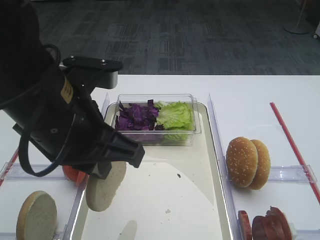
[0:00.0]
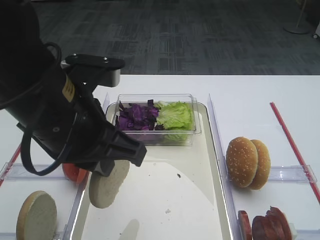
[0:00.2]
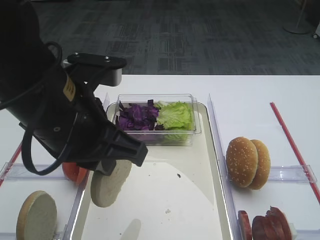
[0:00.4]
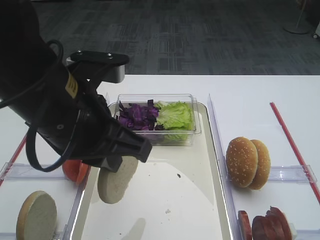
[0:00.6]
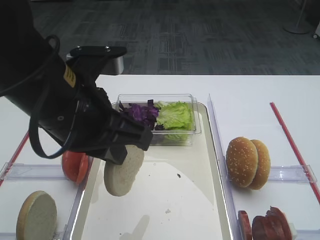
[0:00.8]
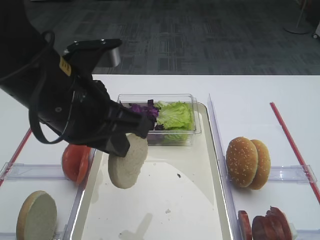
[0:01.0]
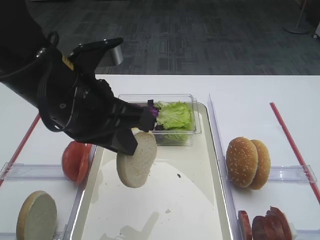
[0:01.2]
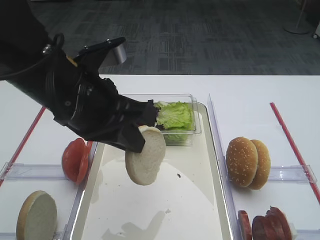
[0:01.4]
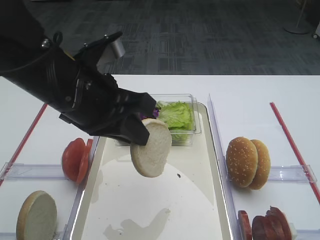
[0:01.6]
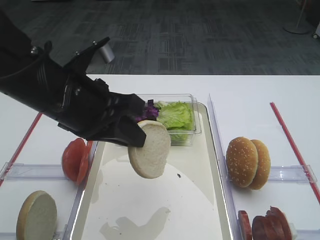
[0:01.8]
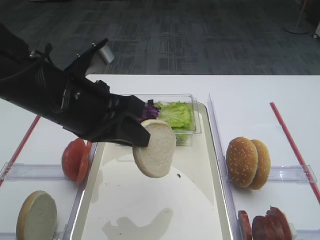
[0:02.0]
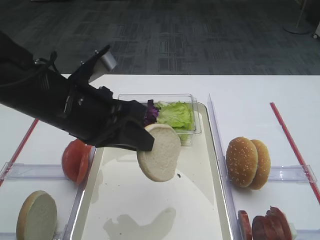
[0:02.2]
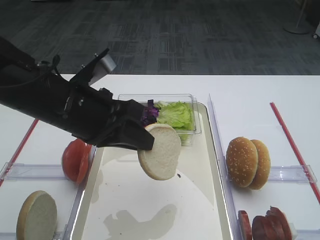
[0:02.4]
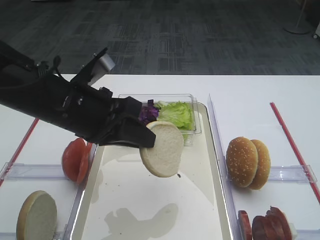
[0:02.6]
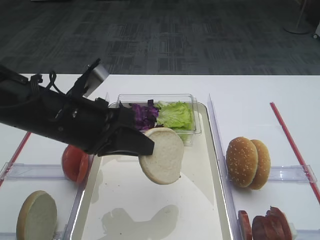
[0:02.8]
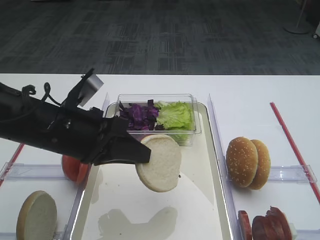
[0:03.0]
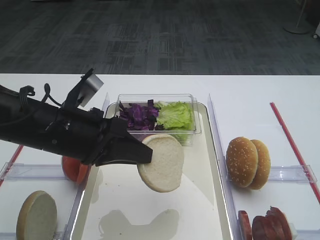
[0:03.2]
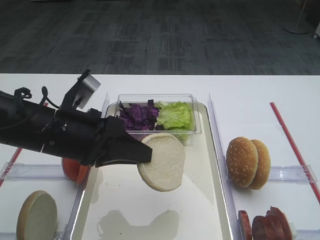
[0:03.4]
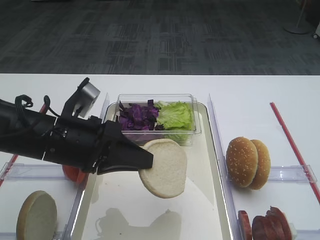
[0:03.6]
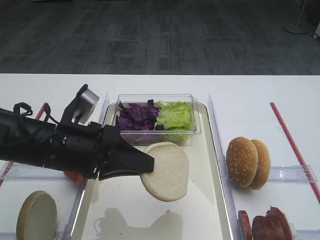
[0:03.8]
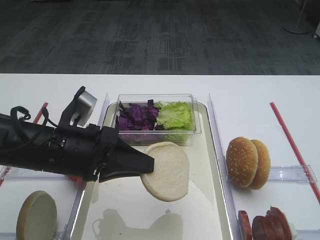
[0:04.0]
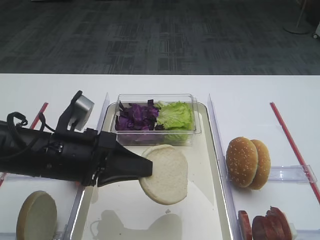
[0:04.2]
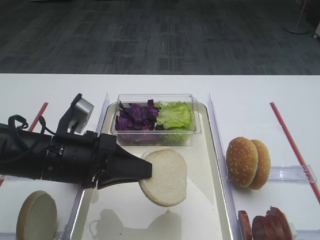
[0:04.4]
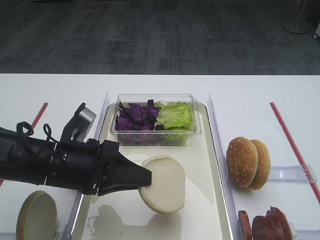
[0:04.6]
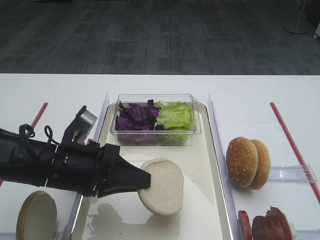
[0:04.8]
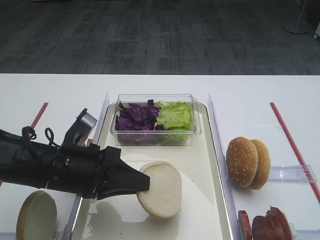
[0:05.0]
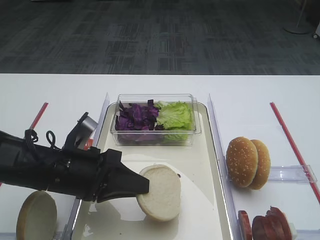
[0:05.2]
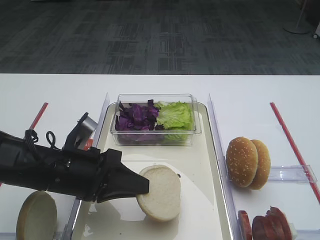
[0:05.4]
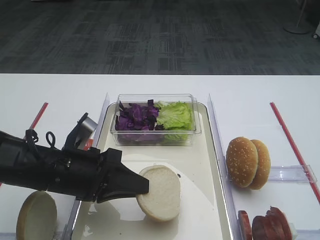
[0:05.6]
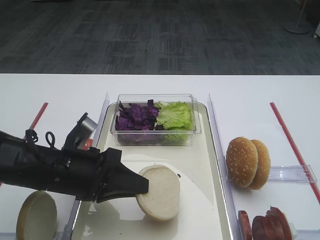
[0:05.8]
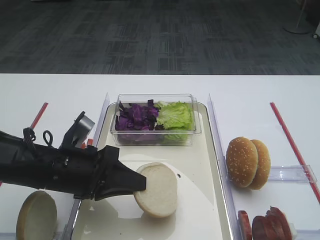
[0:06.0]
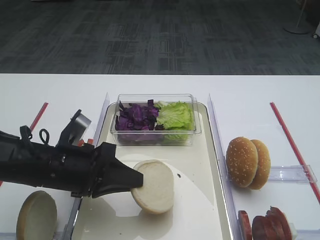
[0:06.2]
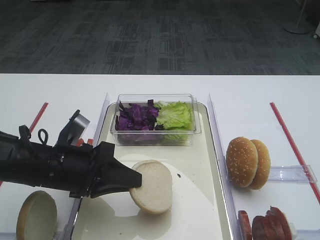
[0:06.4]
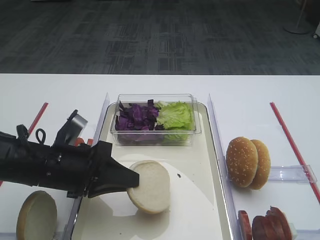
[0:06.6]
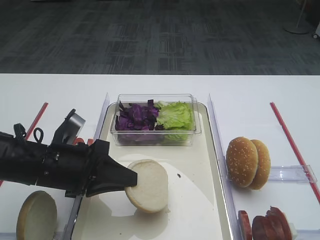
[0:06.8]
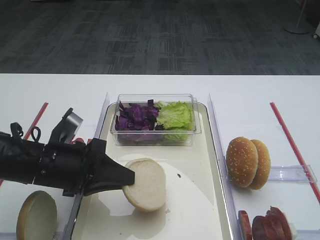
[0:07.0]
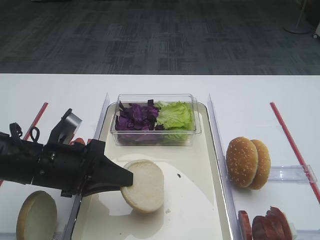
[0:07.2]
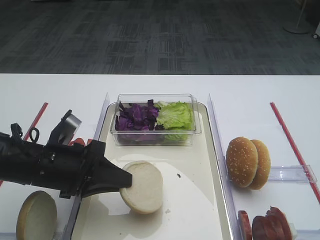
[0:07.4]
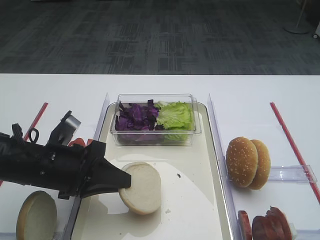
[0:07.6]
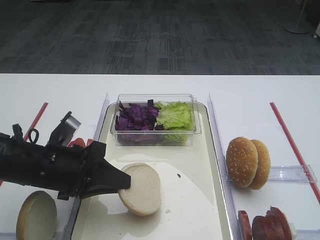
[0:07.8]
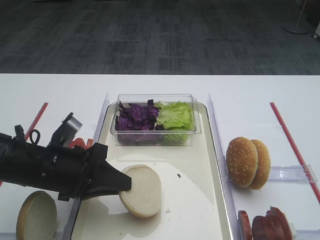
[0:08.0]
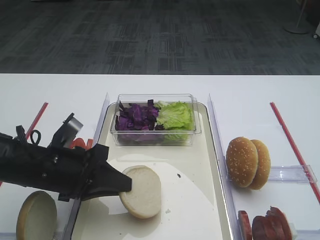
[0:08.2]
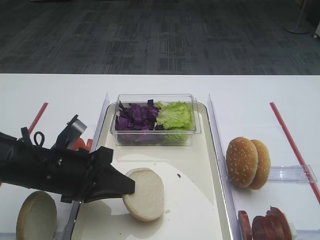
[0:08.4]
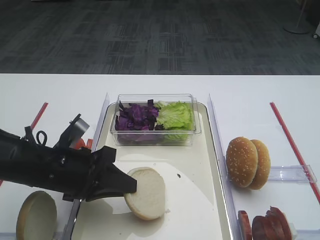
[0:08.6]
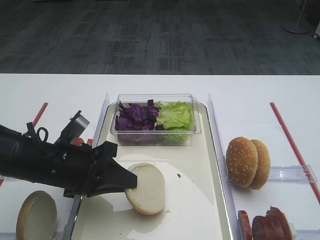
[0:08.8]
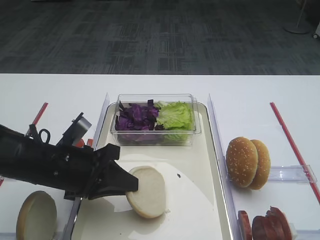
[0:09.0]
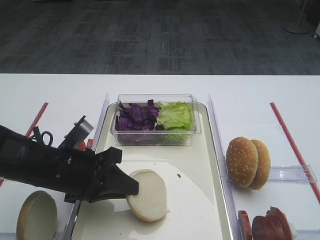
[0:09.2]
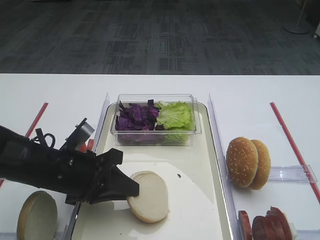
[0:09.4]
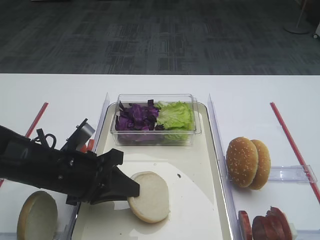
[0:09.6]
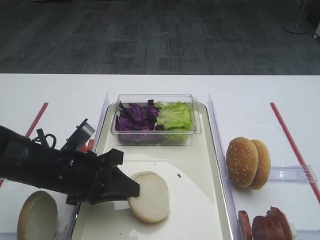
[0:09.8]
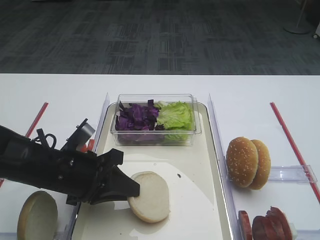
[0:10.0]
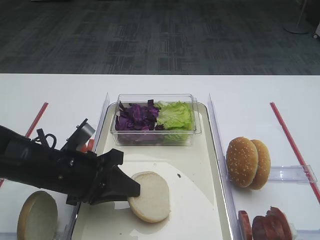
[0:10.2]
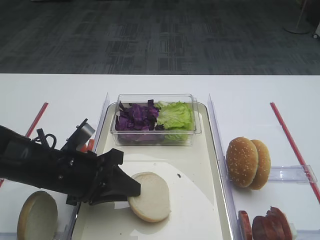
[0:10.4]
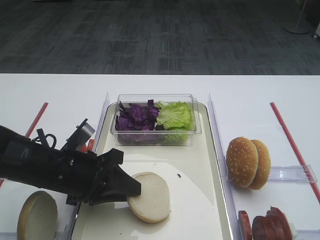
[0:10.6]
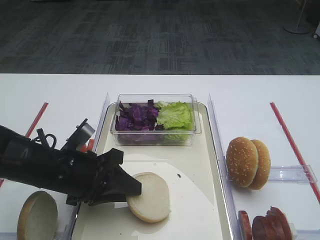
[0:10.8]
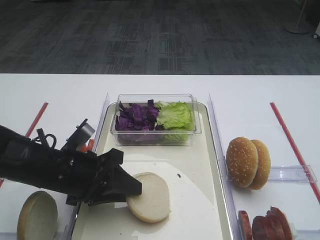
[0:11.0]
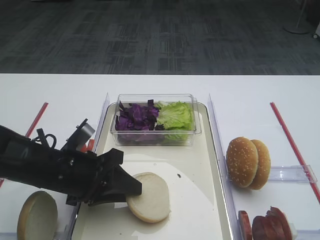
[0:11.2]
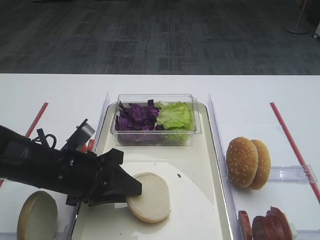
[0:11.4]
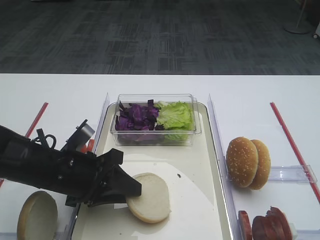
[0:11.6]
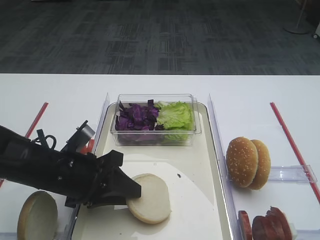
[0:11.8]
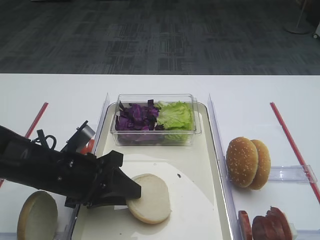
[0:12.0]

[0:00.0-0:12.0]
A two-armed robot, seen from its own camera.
0:01.6 to 0:03.0: The left gripper moves downward, approximately 5 cm.
0:03.0 to 0:04.4: There are only small adjustments of the grippers.
0:04.4 to 0:09.0: The grippers stay close to where they were, moving slightly.
0:09.0 to 0:12.0: Both grippers stay put.

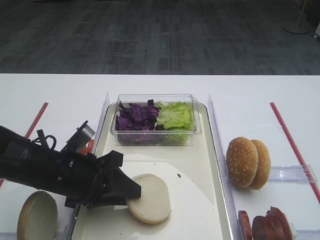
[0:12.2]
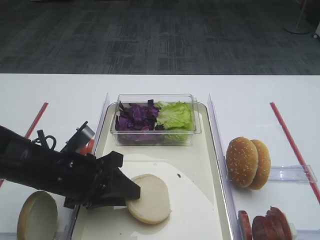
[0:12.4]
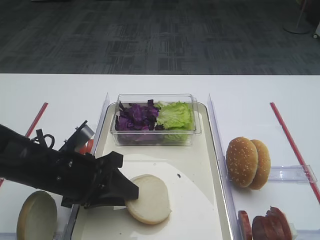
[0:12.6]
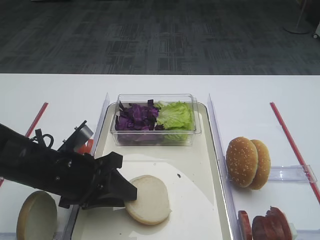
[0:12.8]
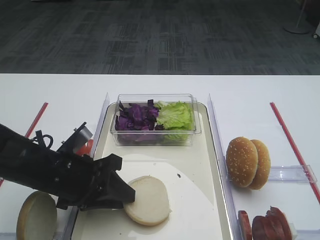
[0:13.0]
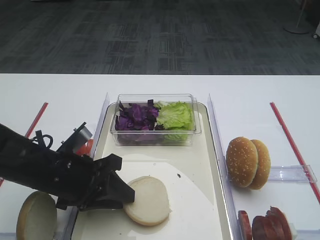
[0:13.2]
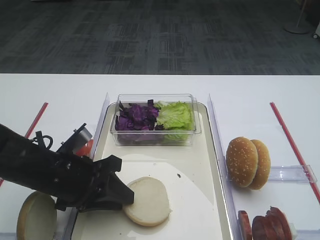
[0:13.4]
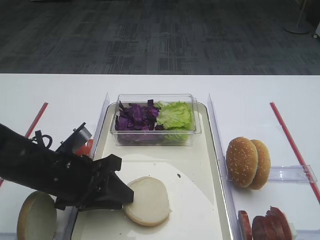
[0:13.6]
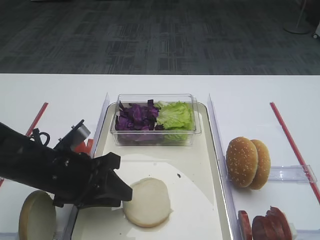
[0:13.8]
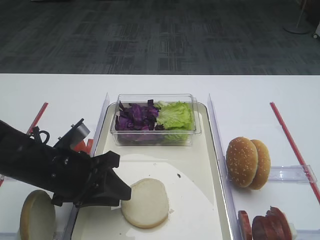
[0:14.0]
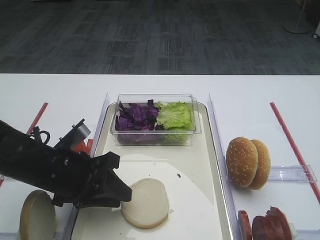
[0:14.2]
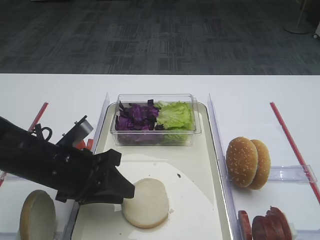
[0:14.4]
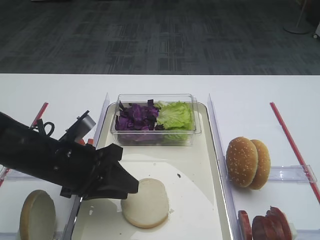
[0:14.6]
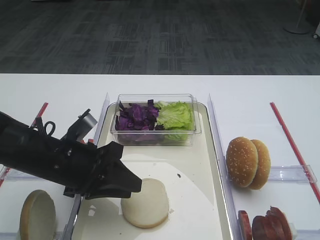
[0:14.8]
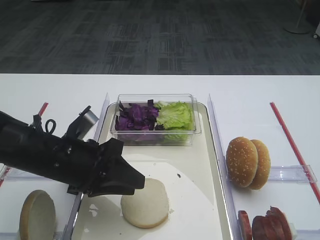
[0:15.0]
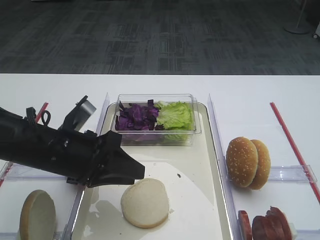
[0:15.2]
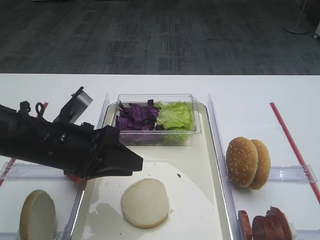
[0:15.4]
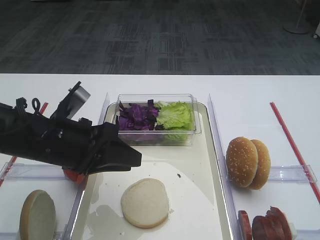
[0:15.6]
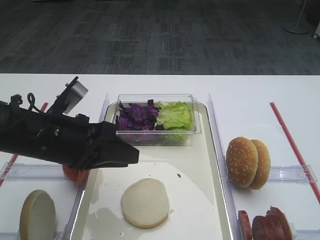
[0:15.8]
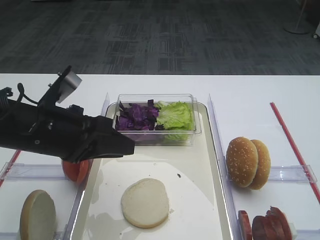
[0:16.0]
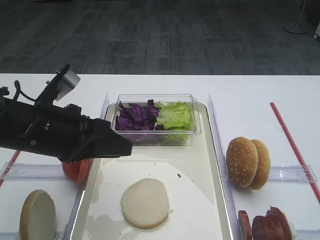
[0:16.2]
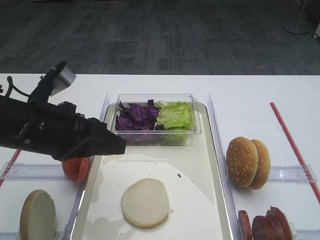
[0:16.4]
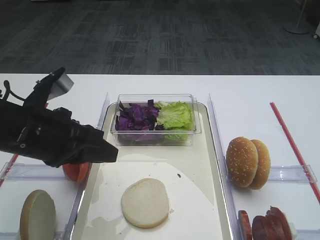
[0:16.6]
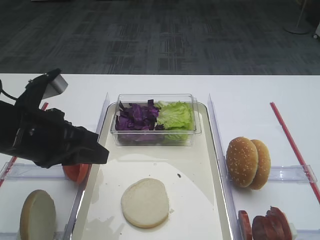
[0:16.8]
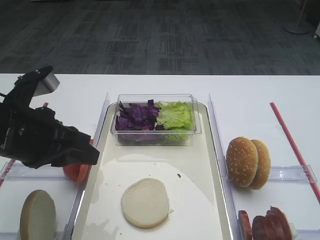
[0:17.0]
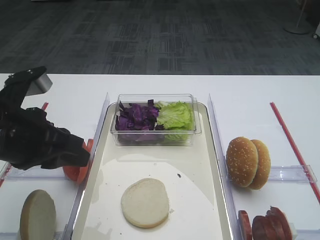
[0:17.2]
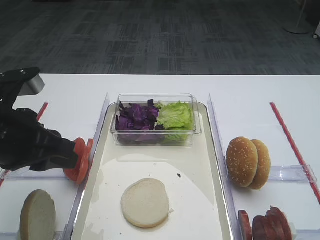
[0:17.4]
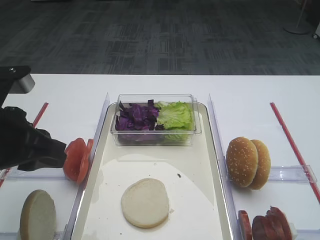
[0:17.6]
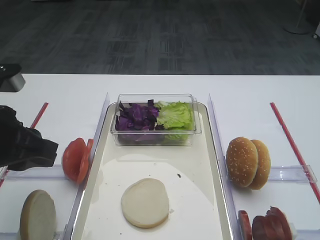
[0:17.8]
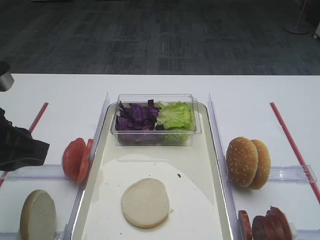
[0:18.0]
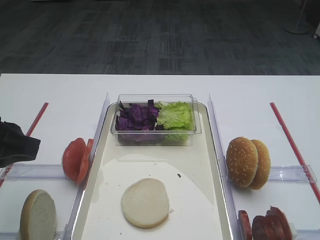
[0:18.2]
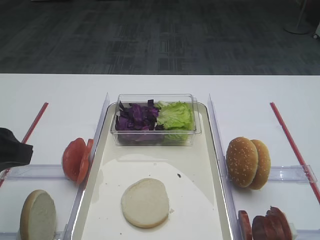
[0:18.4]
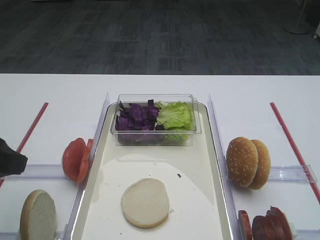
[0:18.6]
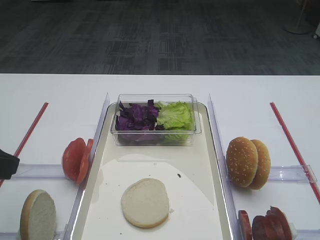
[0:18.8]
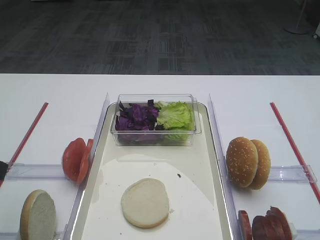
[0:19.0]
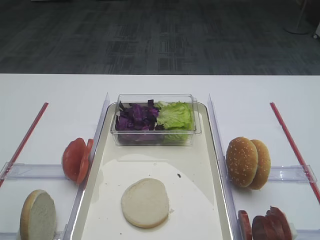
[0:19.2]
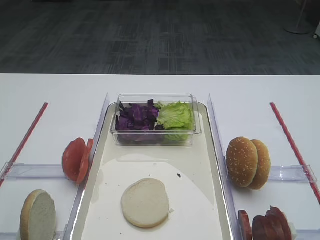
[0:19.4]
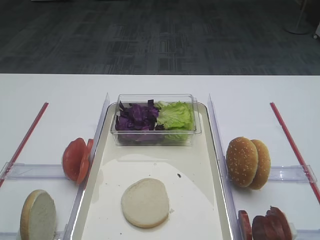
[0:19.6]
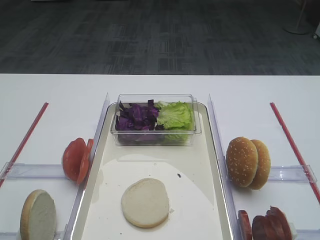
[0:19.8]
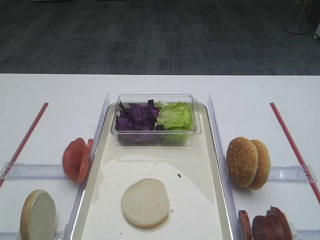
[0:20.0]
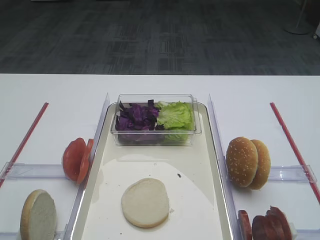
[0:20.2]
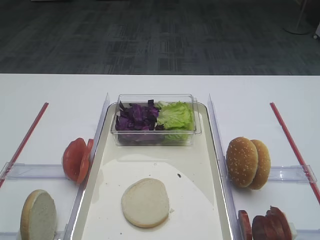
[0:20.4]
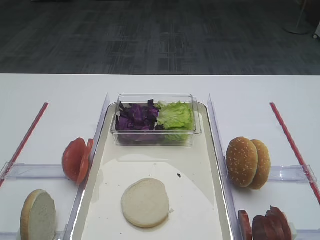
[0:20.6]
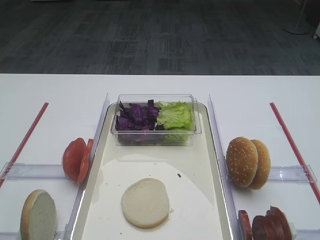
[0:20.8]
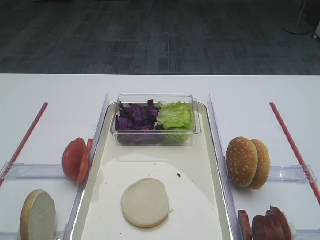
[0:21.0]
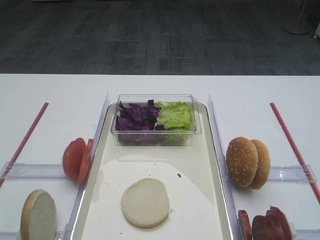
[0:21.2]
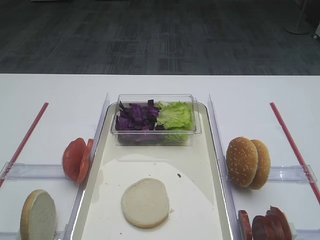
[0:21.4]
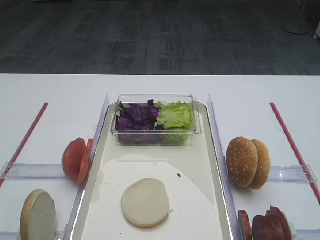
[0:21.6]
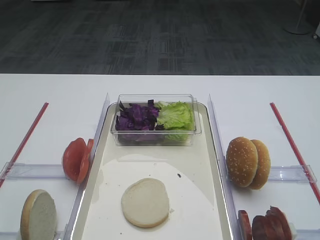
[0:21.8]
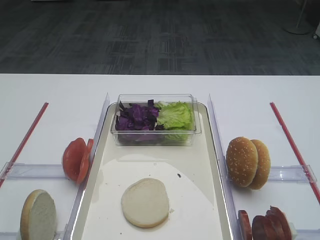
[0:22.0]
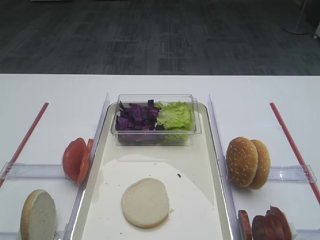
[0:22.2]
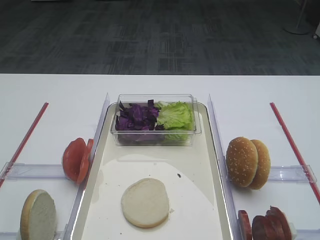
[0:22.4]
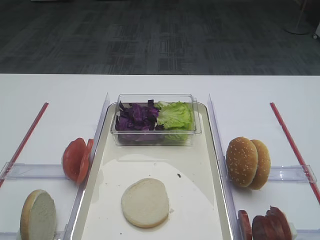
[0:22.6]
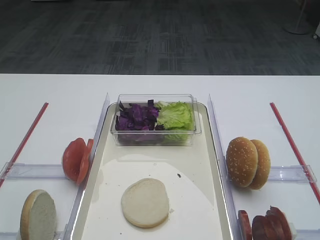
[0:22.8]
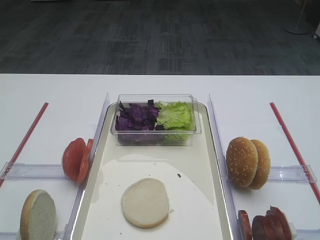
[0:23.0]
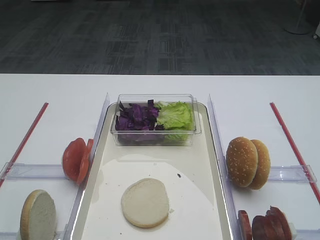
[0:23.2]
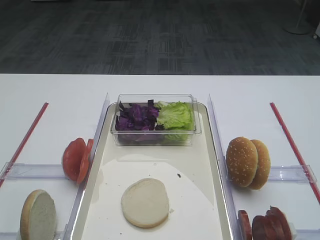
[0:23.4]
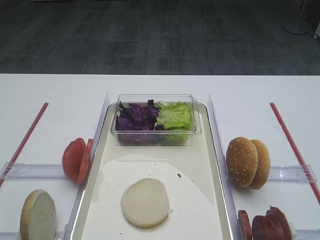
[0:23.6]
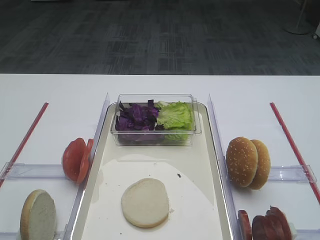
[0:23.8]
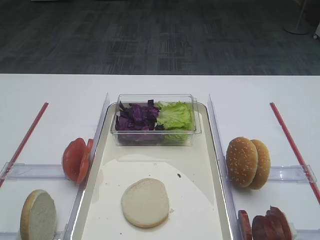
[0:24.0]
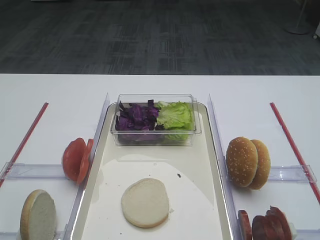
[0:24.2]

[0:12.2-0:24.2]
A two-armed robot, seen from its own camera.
Step, 0:12.2 to 0:15.8: Place the bread slice on the tray with the left gripper.
0:12.2 to 0:15.2: The grippers stay close to where they were, moving slightly.
0:15.2 to 0:16.6: The left gripper shifts by approximately 5 cm.
0:16.6 to 0:18.2: The left gripper is displaced to the left by about 5 cm.
0:18.2 to 0:19.8: The left gripper heads backward, covering about 15 cm.
0:22.6 to 0:24.2: Neither gripper changes place.
